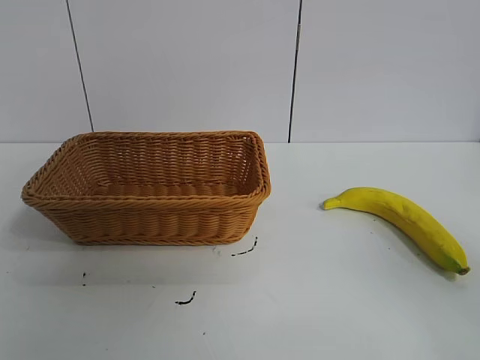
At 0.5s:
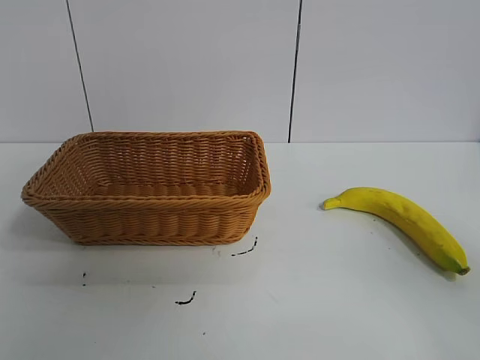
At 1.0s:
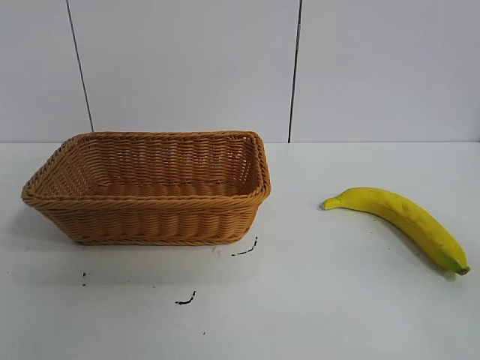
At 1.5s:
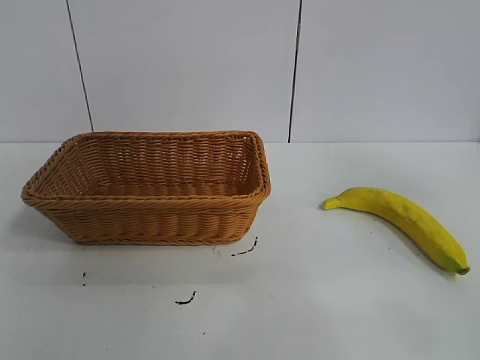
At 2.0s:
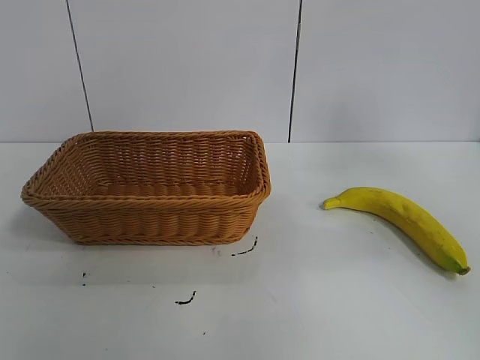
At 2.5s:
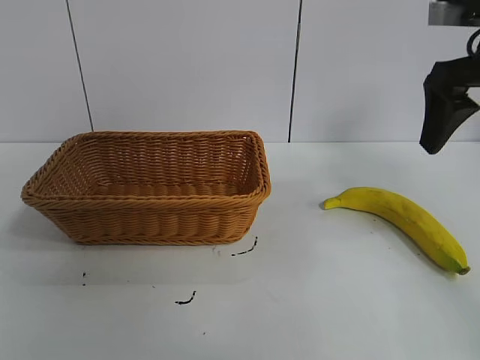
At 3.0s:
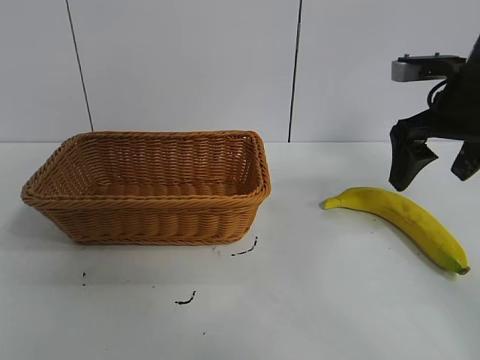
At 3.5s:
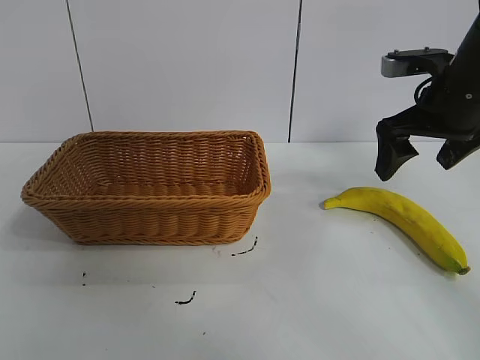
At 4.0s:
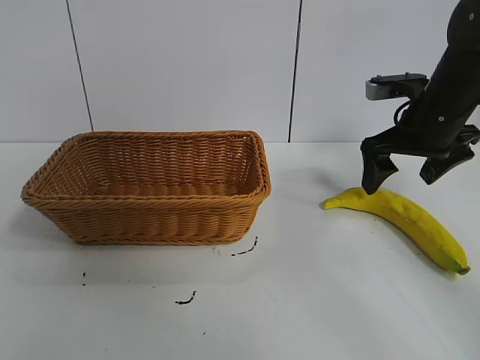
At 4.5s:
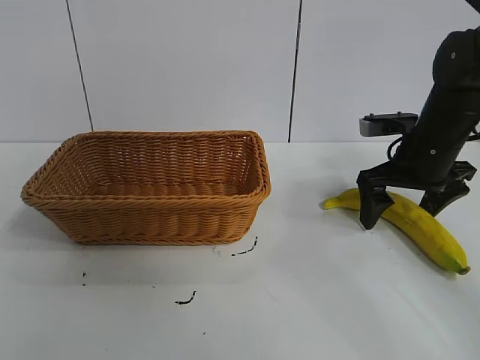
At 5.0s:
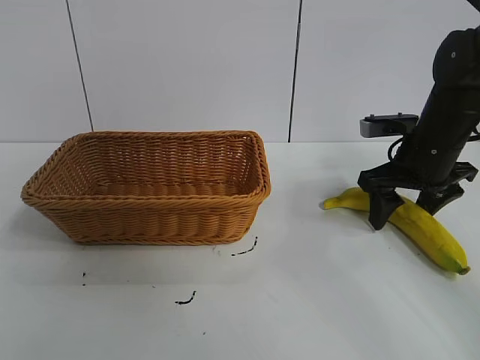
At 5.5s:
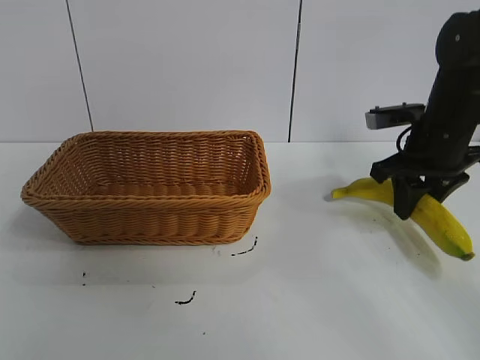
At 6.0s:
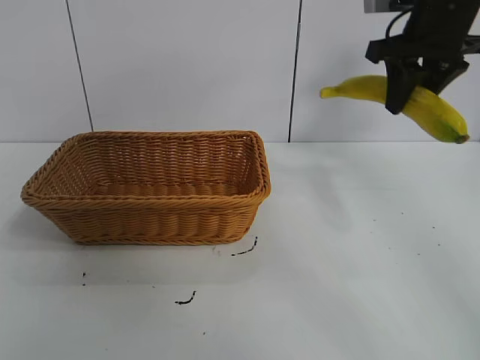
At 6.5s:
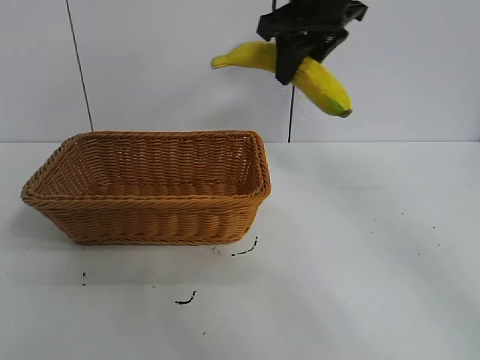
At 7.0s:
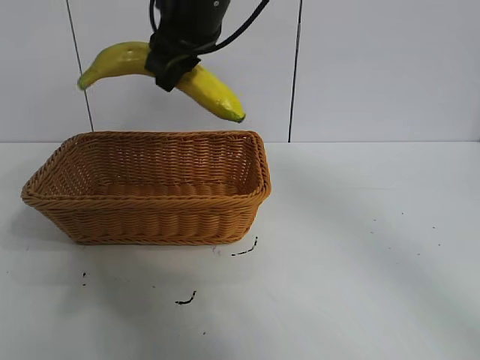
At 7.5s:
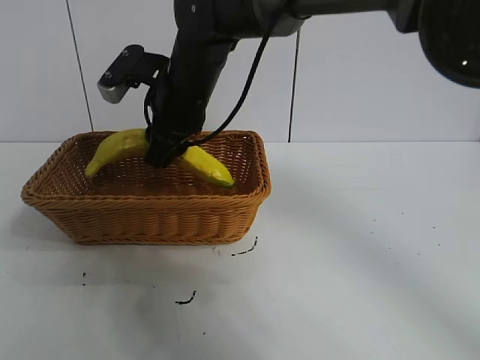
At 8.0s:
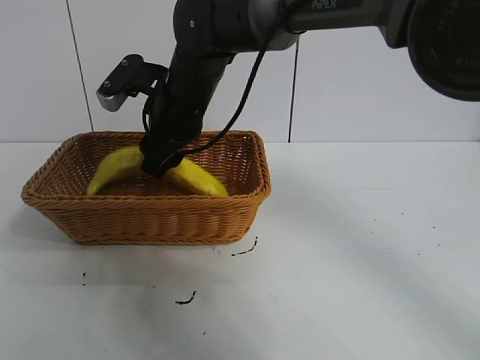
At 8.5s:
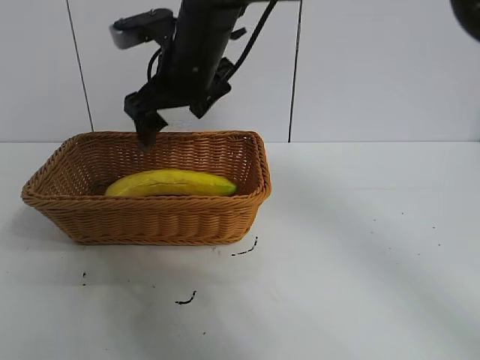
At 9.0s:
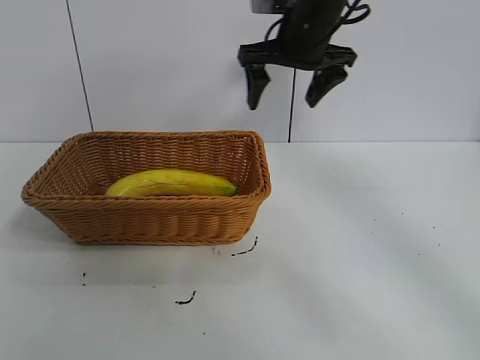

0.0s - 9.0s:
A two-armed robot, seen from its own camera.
Task of the whole recording: pick up the banana and put it into the basket.
Step, 1.0s - 5.0s: Grasp the banana with right gripper.
Step, 5.5s - 8.5s: Place the banana in the basket with right gripper.
